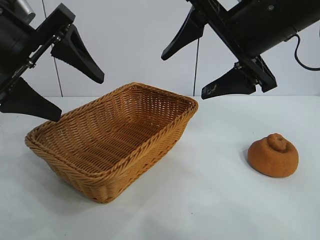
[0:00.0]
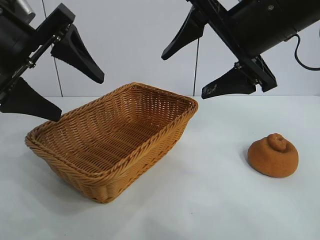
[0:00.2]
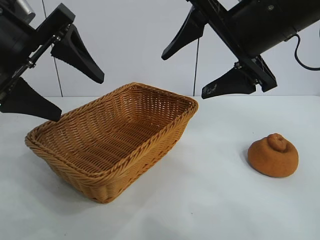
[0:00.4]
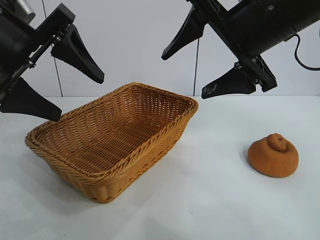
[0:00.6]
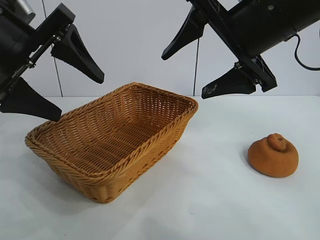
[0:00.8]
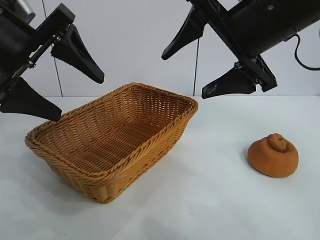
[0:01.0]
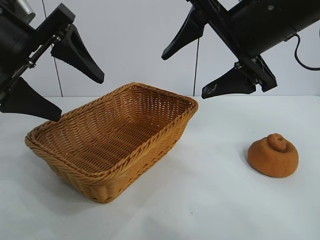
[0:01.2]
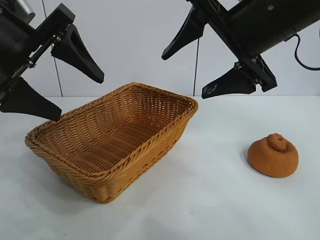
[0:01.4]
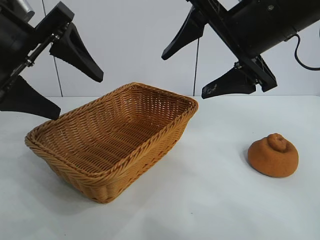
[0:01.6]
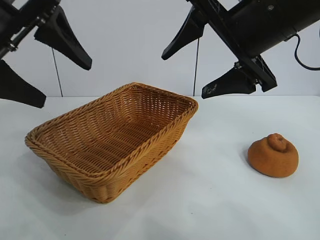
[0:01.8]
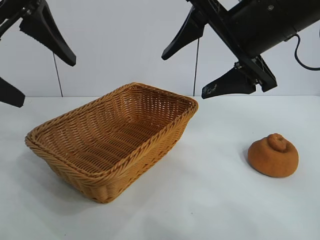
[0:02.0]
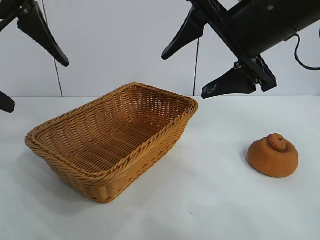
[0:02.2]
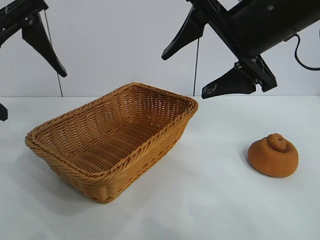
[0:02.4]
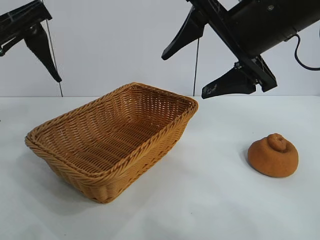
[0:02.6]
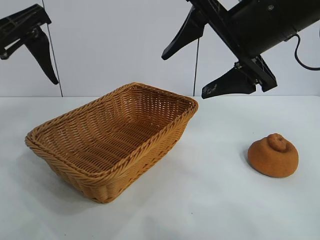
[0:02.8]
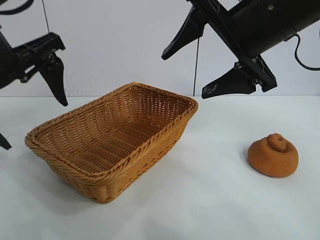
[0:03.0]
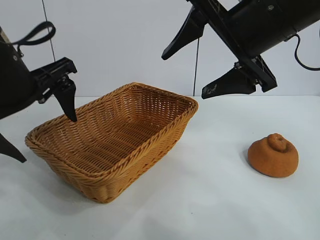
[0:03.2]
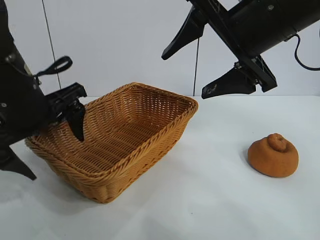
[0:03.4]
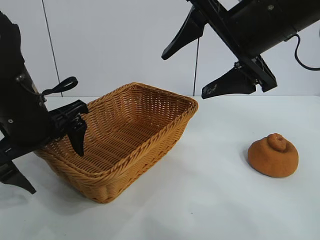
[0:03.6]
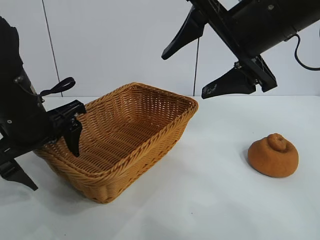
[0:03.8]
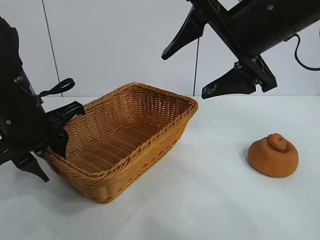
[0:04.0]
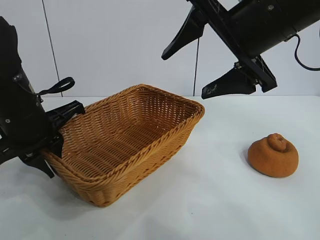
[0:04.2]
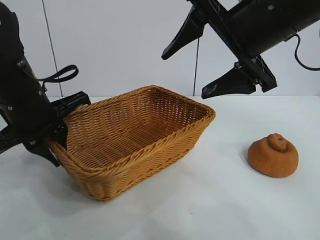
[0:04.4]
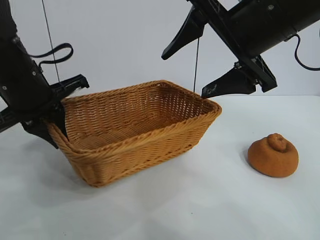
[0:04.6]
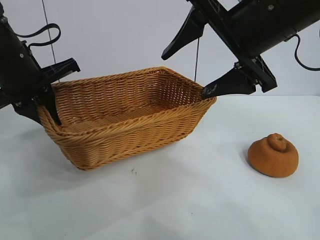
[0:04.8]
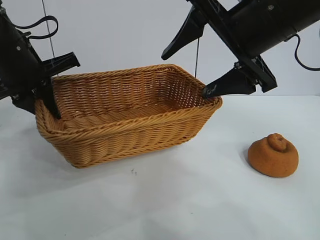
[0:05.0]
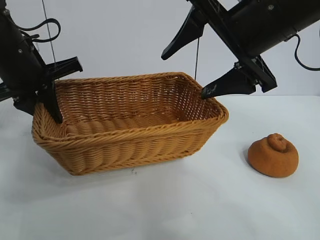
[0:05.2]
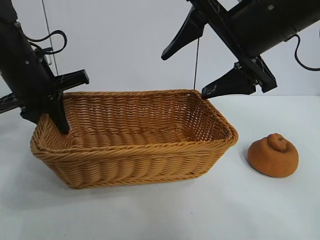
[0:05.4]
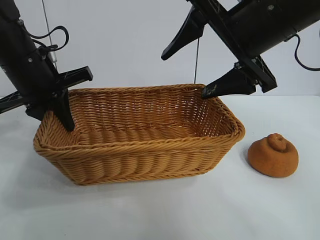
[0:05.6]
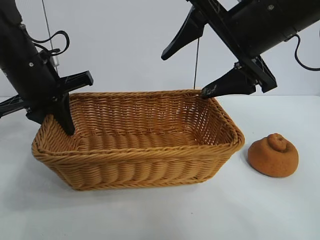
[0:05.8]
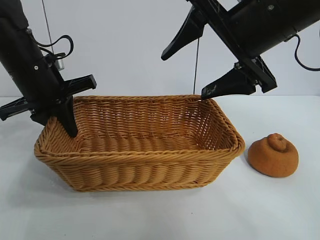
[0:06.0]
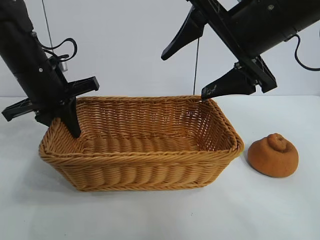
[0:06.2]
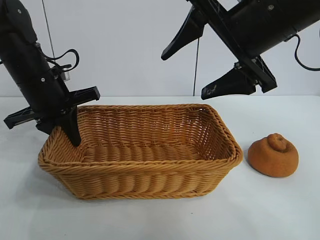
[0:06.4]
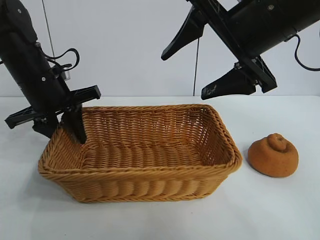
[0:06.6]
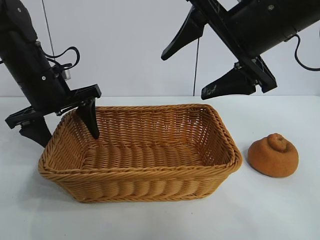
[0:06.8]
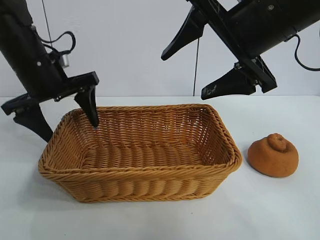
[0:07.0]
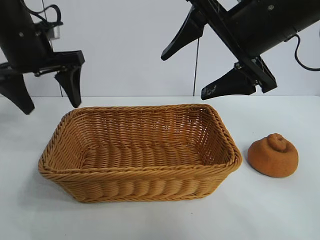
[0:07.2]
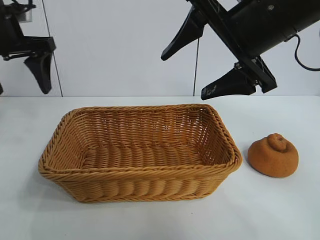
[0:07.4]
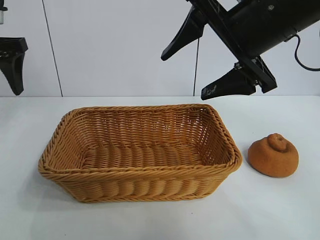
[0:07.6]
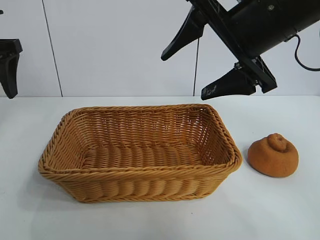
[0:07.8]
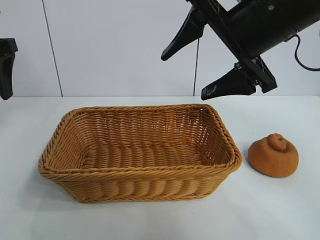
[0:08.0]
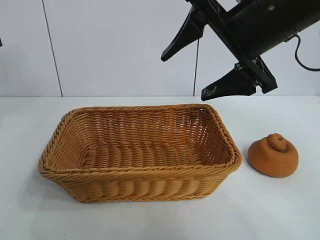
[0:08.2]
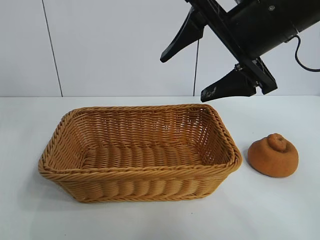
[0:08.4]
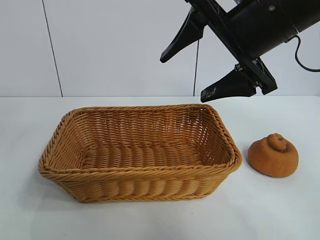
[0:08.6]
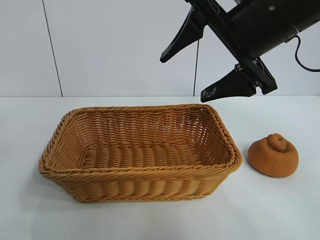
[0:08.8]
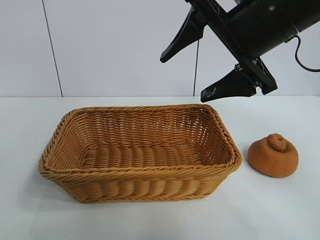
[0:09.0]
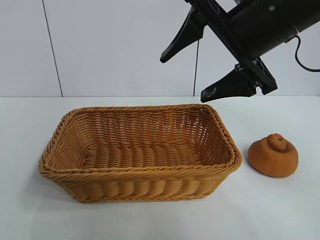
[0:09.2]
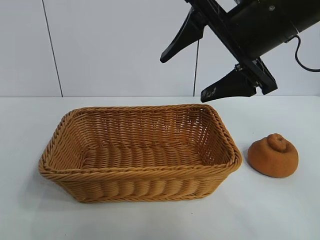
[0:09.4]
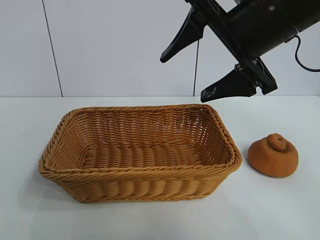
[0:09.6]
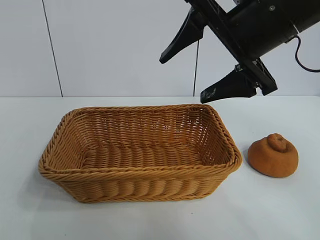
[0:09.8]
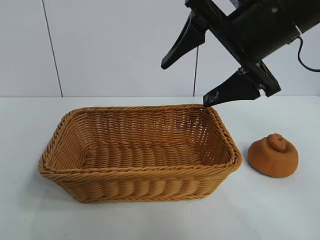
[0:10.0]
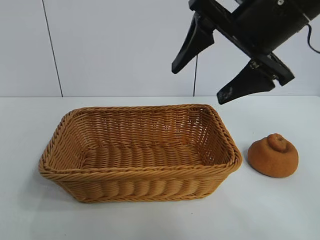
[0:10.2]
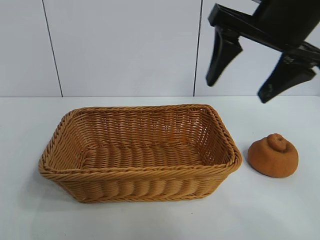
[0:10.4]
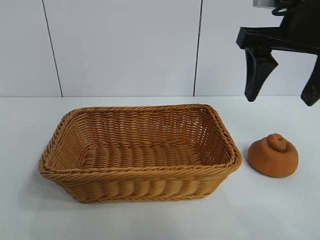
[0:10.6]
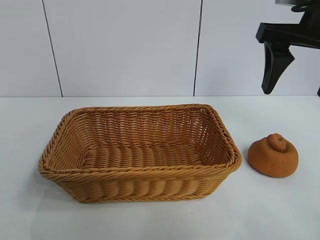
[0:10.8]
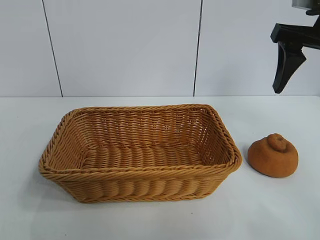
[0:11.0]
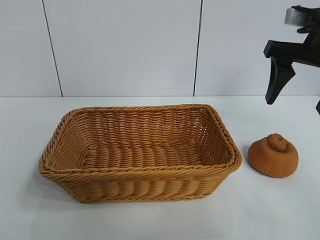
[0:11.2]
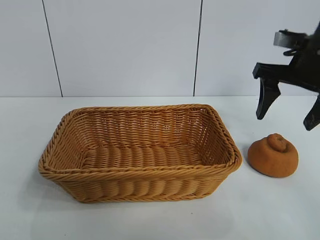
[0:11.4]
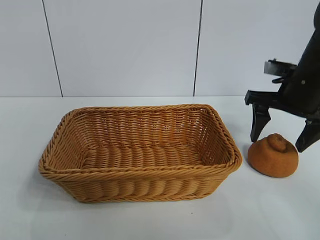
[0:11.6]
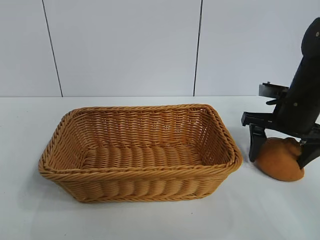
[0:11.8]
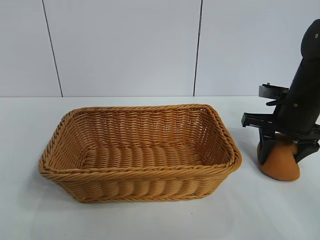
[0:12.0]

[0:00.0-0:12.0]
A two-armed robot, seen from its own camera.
Task of the whole recording: pick up the orange and put it into the basket.
Step, 0:01.2 to 0:04.2: Grasp the basket with left gripper.
Step, 0:04.4 to 0:07.0: Place the basket in the center of view with left gripper.
Step, 0:07.4 to 0:12.0: Grasp the orange with right gripper.

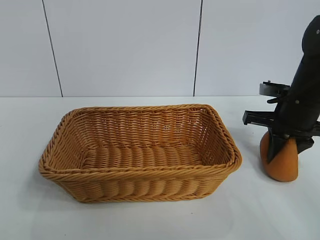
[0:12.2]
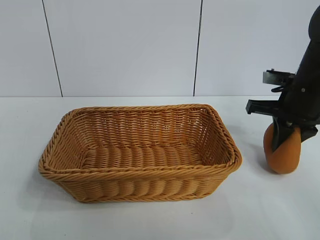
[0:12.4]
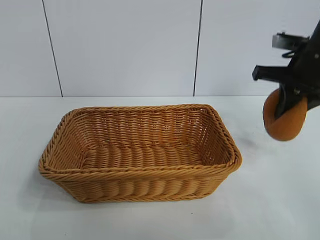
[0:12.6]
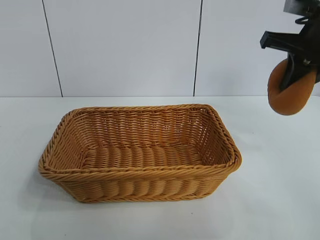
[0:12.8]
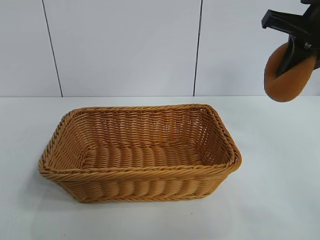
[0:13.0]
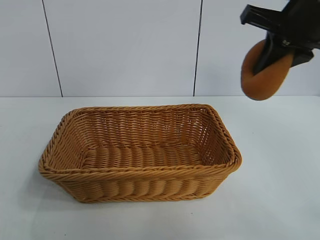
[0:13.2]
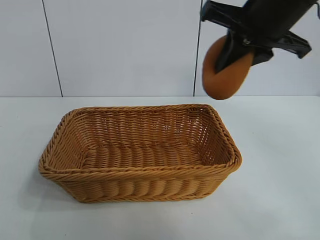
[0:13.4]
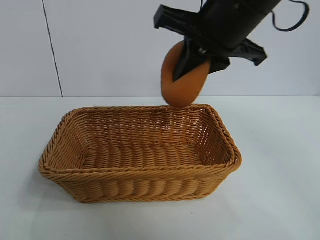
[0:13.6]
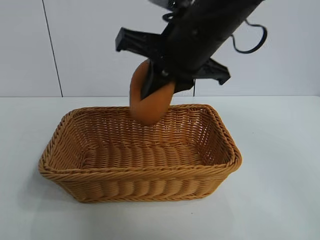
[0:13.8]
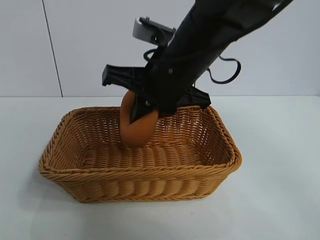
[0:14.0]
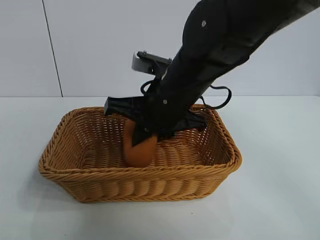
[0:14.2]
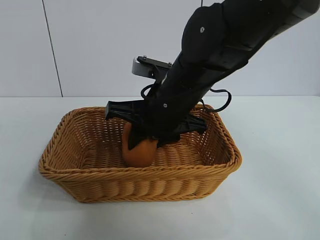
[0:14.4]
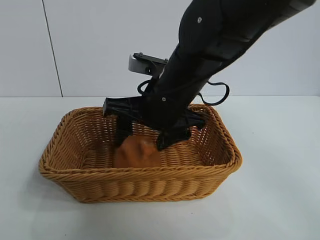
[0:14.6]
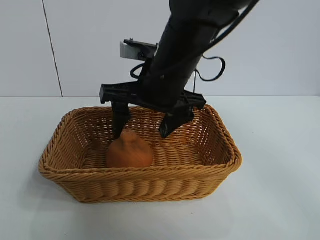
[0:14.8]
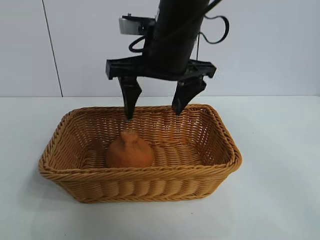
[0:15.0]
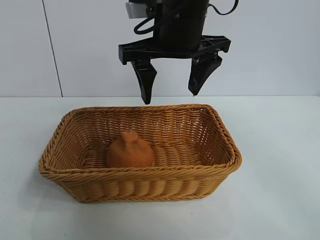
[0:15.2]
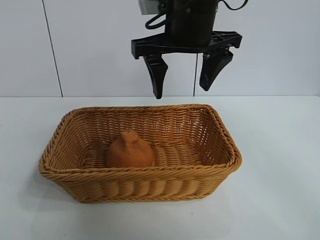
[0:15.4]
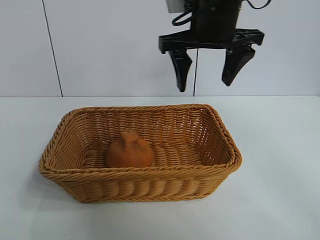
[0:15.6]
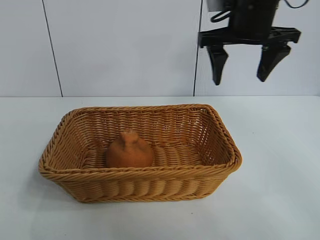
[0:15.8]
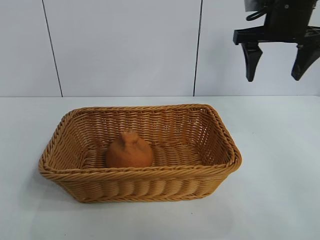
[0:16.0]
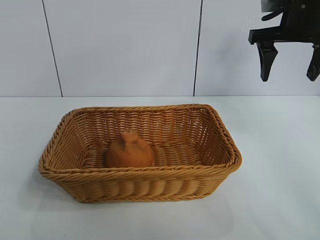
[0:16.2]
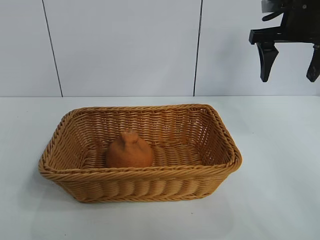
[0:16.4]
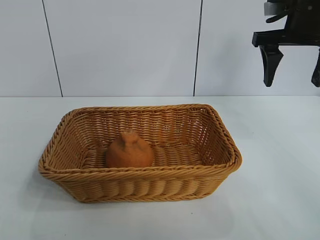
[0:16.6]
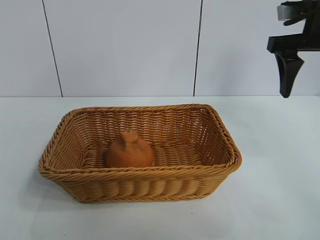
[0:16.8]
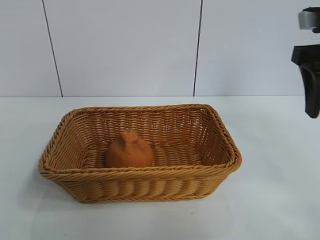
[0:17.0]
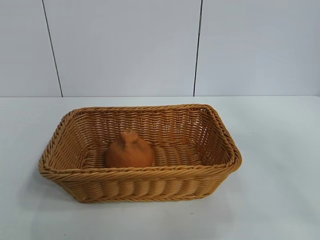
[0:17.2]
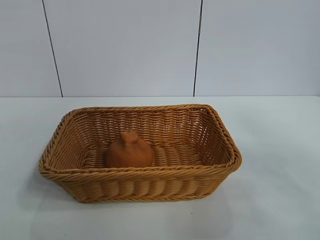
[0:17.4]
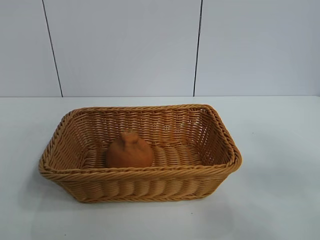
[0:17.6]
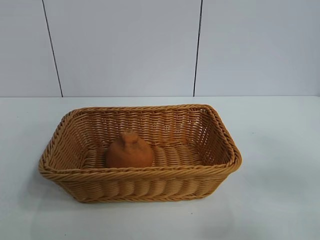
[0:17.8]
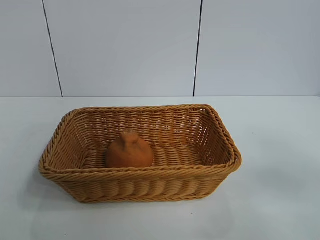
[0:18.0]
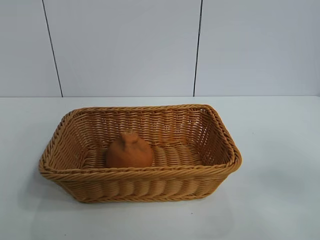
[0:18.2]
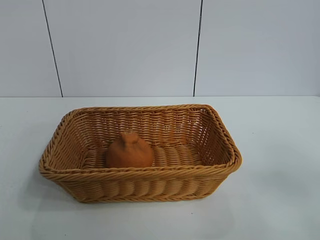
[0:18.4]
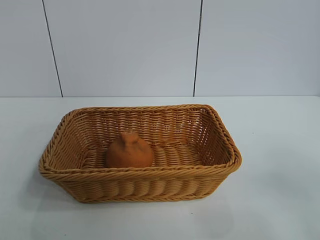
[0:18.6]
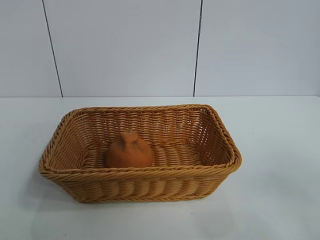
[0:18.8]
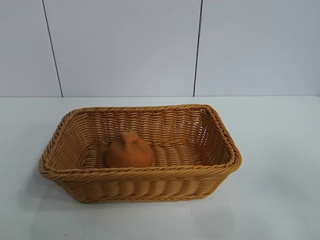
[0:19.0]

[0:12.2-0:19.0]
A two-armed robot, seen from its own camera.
Task of the whole recording: pick up the orange and put it into the basket.
Step, 0:12.2 to 0:15.0: Place the orange in the basket with right gripper.

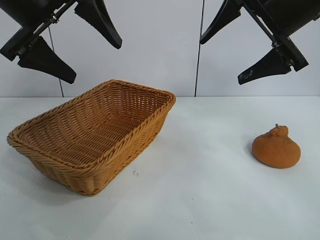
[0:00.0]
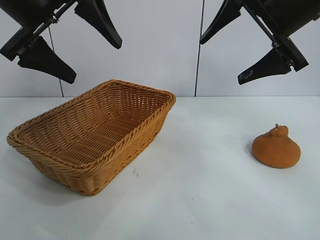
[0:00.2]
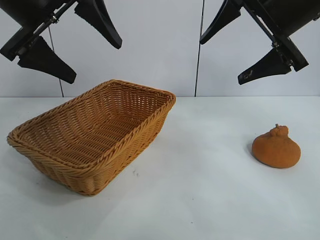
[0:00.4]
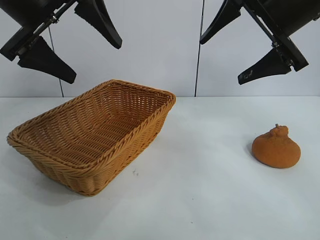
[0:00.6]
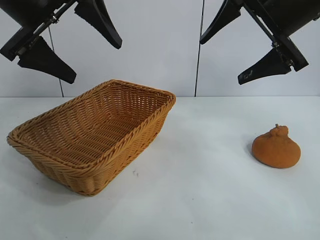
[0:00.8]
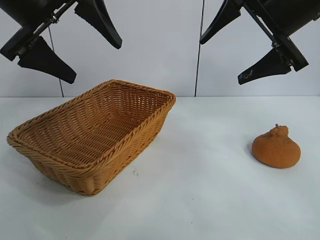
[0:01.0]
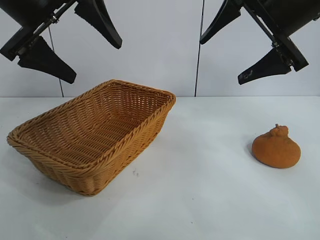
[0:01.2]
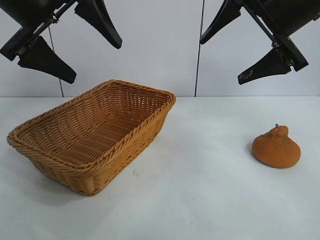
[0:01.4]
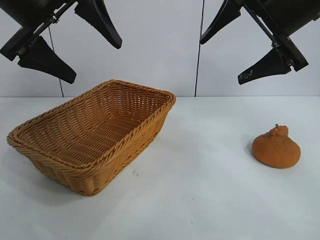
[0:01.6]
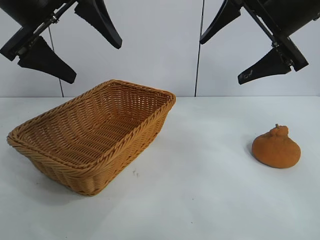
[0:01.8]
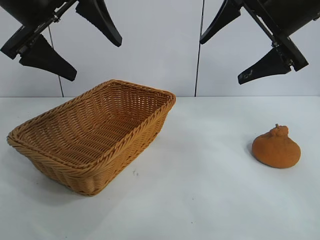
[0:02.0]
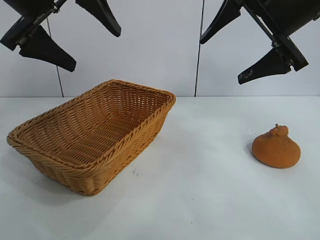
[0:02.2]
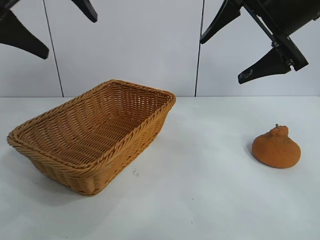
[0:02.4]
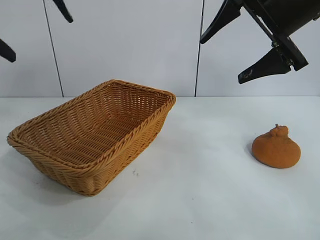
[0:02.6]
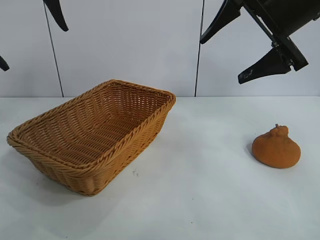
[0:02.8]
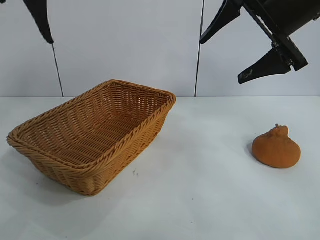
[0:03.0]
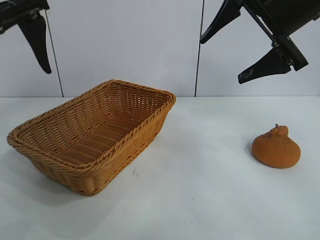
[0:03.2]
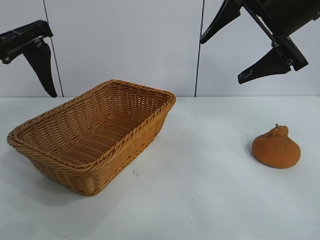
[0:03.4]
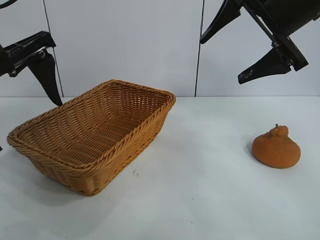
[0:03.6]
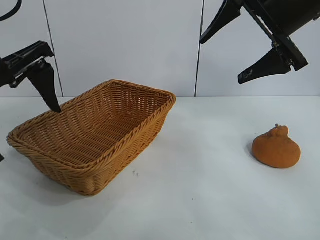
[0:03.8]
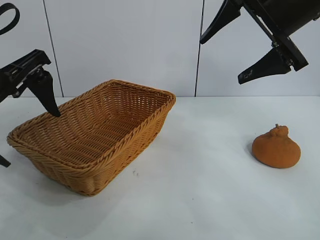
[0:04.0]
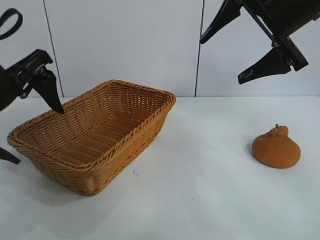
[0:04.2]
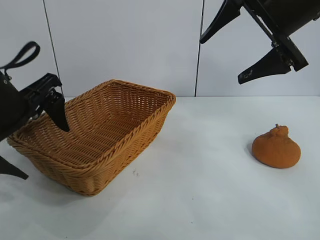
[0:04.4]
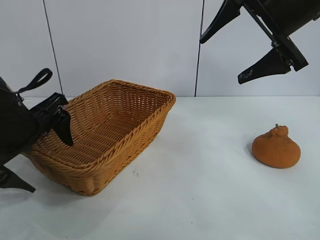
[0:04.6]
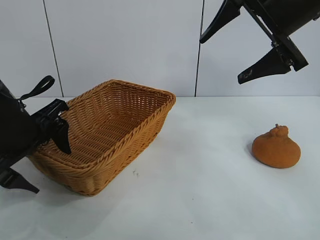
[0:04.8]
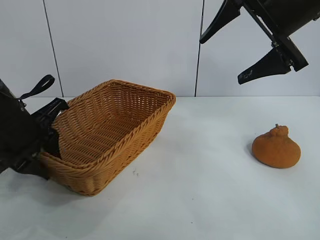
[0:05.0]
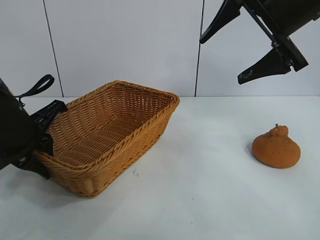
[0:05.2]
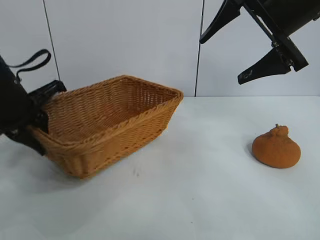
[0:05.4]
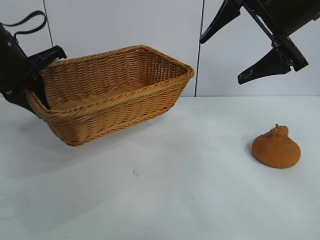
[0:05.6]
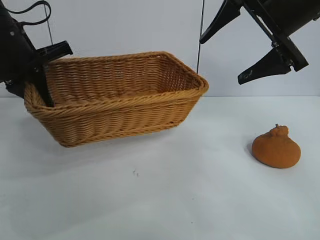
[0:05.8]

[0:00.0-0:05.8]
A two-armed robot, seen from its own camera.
Task of the whole recording: pick up the orange and put it into the basket.
Step, 0:01.0 to 0:05.0: Grasp the basket with left gripper.
